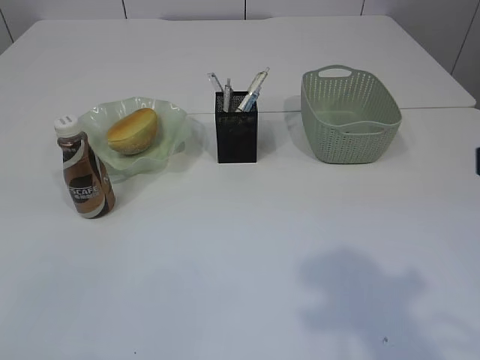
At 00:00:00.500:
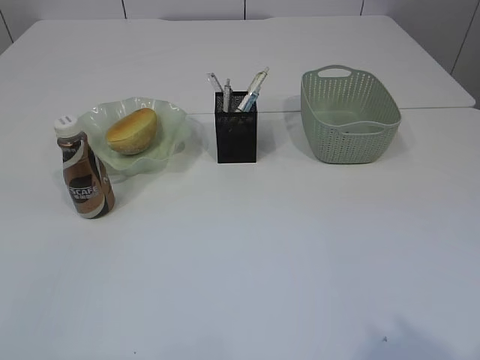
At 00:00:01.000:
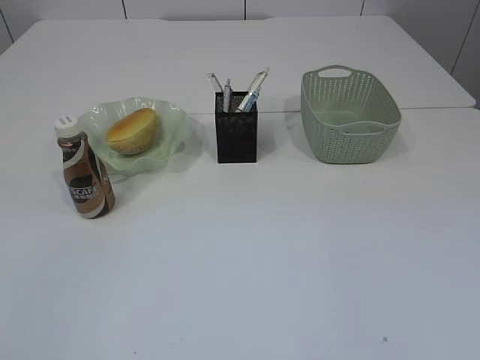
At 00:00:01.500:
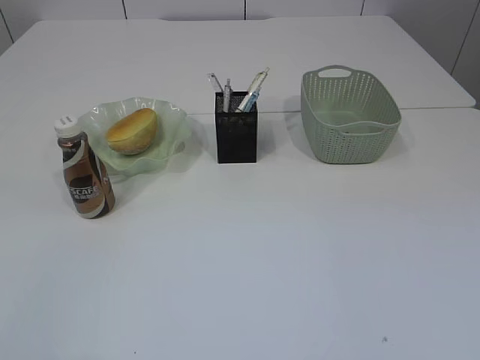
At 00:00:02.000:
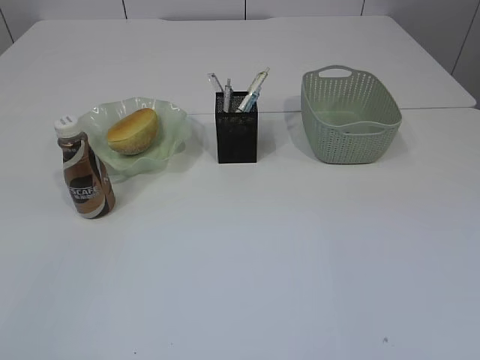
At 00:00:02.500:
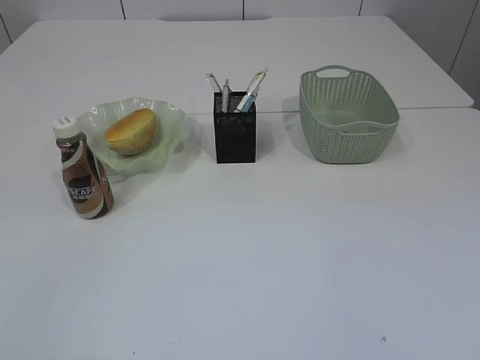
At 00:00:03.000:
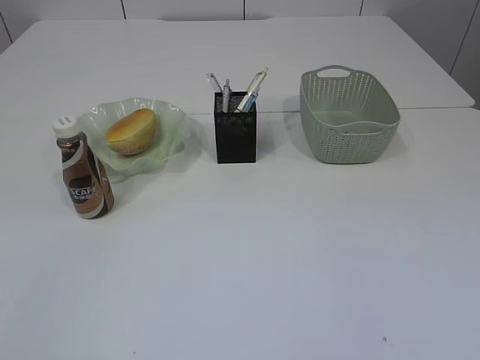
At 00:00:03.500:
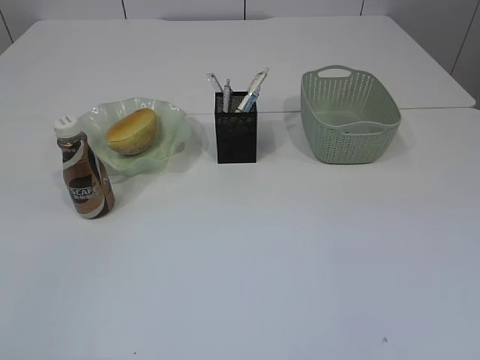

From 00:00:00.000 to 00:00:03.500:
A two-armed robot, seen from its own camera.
From 00:00:00.000 to 00:00:02.000: The right gripper heads backward, covering approximately 15 cm.

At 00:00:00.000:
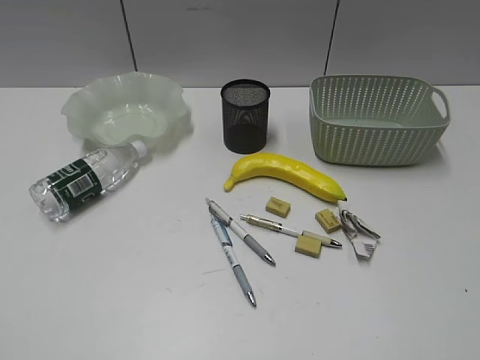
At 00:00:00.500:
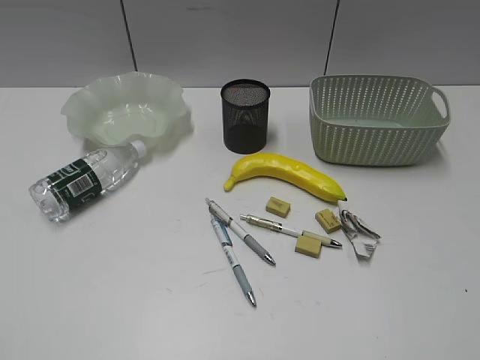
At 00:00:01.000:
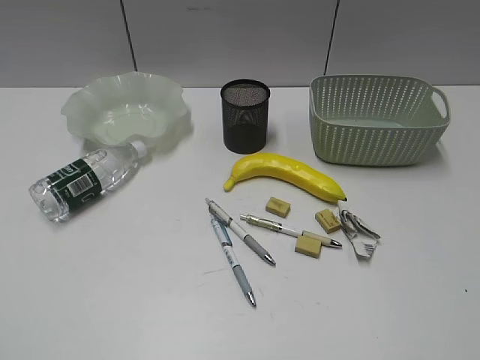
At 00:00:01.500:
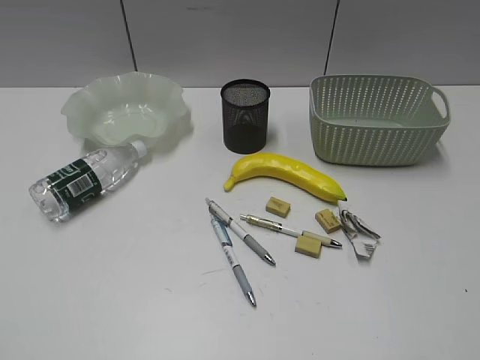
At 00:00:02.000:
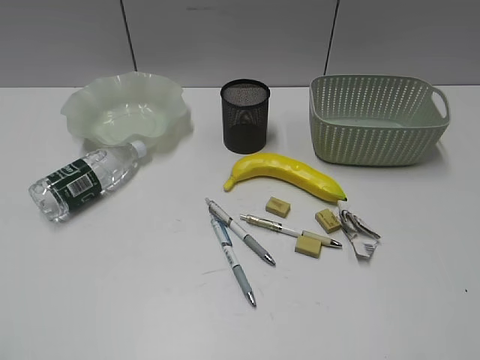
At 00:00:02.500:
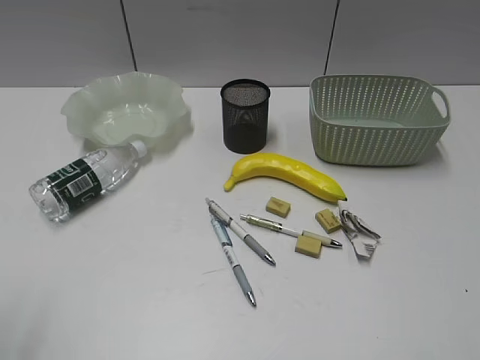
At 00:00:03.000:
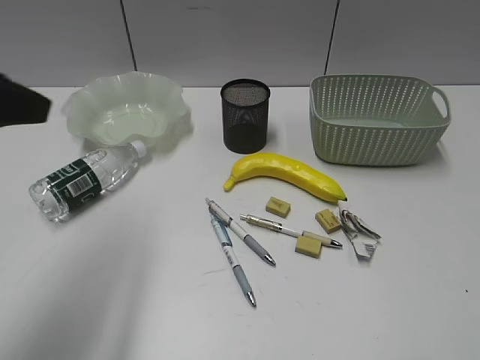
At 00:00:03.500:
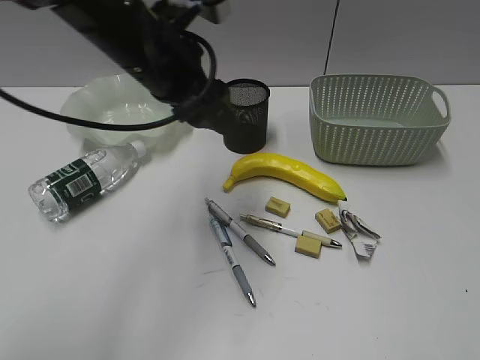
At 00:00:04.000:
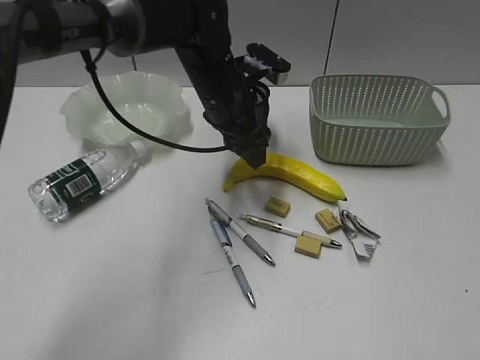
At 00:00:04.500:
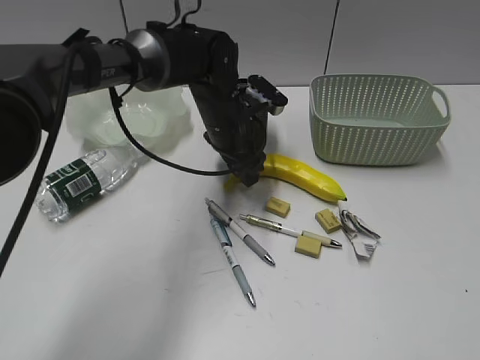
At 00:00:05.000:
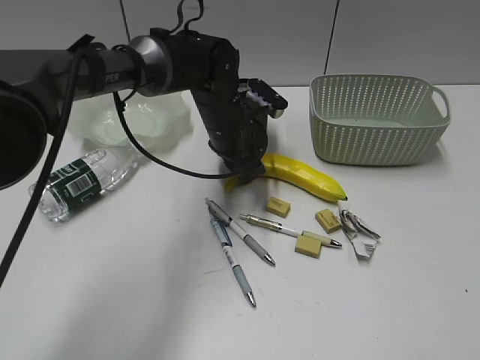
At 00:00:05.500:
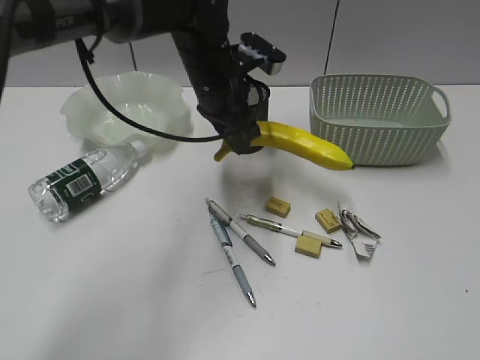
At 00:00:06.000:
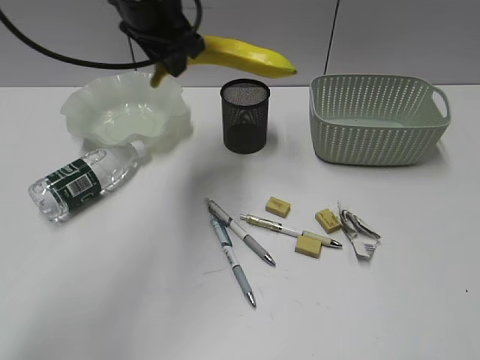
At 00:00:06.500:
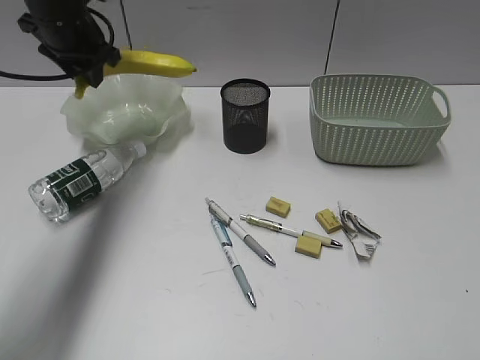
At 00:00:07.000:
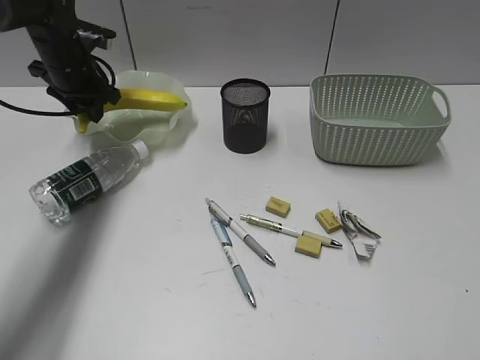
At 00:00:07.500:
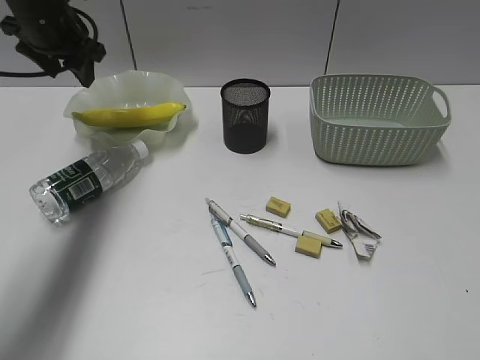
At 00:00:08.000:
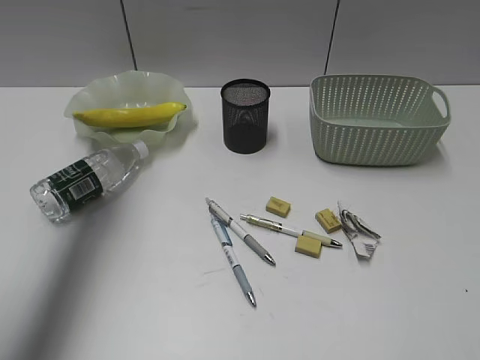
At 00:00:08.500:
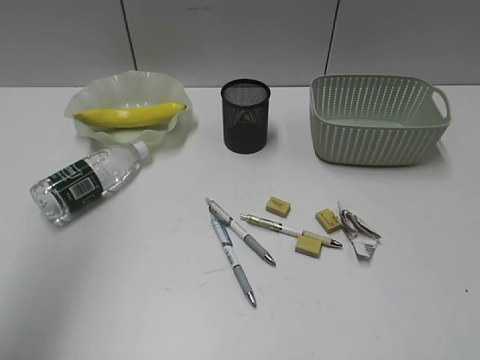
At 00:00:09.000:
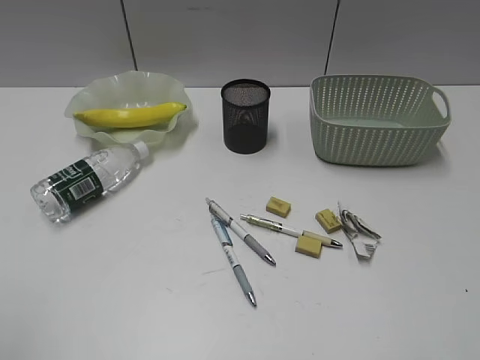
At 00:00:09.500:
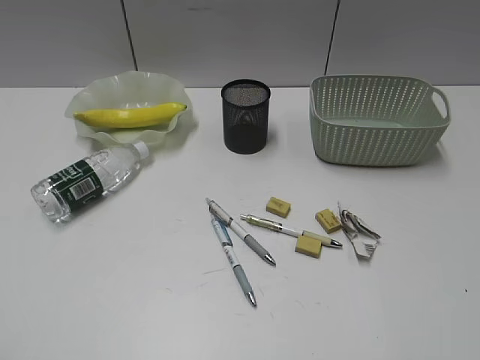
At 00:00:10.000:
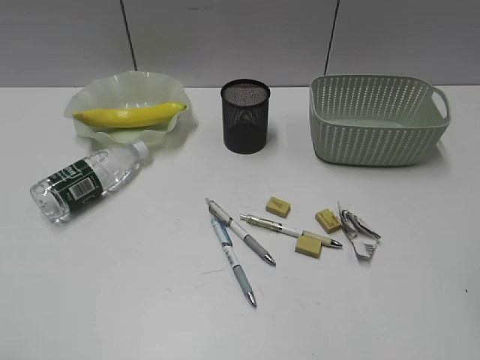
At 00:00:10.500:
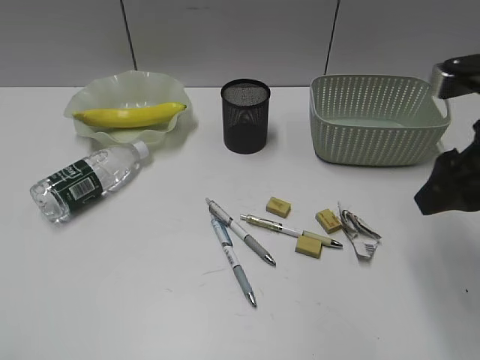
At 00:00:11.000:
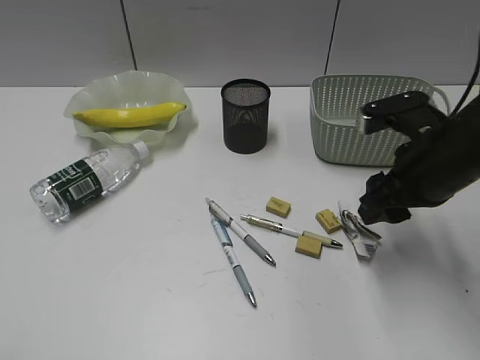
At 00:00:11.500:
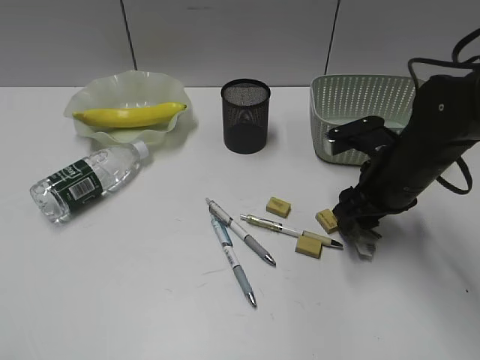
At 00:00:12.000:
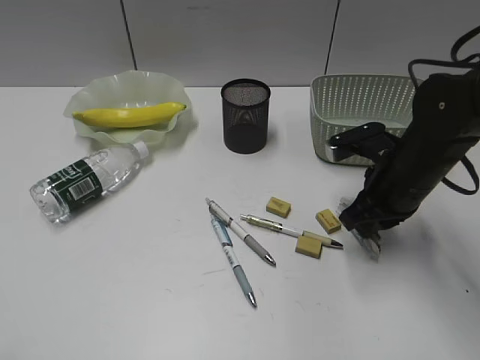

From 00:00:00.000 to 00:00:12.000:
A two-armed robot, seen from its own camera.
Step, from 00:00:02.000 to 00:00:05.000: Grasp the banana with left gripper.
Step, from 00:00:05.500 to 00:00:07.000: Place the banana in the plate with left gripper.
Step, from 00:00:07.500 to 00:00:11.500: Grasp the waste paper with right gripper.
From 00:00:02.000 to 00:00:04.000: The left gripper is displaced forward and to the right by approximately 50 cm, and opens.
From 00:00:04.000 to 00:00:06.000: The left gripper shifts some 15 cm upward and to the left, and closes.
From 00:00:06.000 to 00:00:08.000: The left gripper moves to the left and upward, about 20 cm, and opens up.
From 00:00:08.000 to 00:00:10.000: The left gripper moves backward, about 40 cm.
From 00:00:10.000 to 00:00:12.000: The right gripper goes about 30 cm downward and forward, and closes.

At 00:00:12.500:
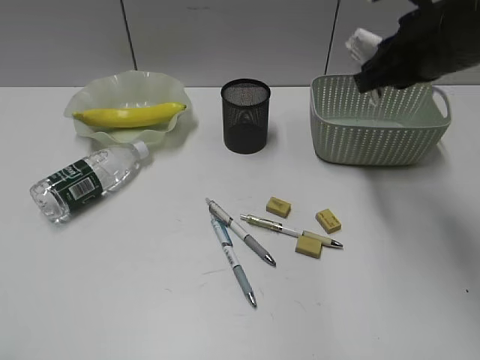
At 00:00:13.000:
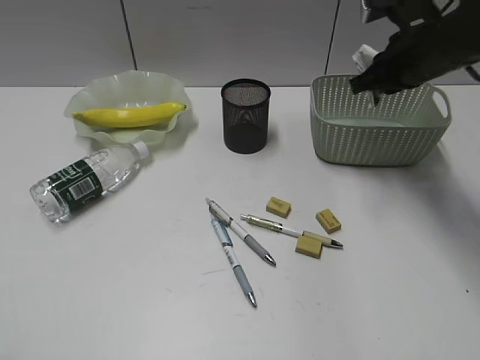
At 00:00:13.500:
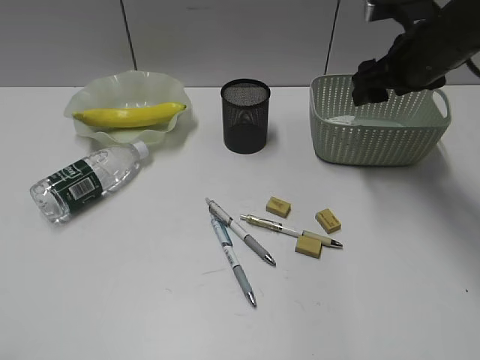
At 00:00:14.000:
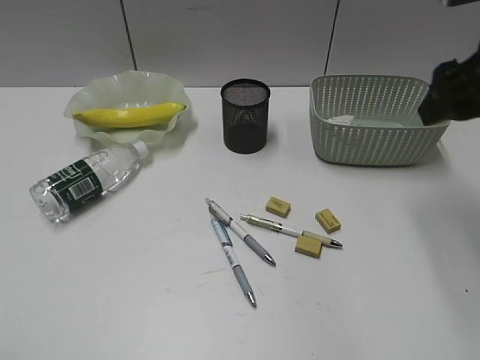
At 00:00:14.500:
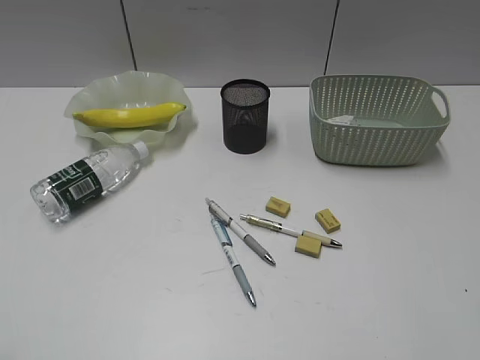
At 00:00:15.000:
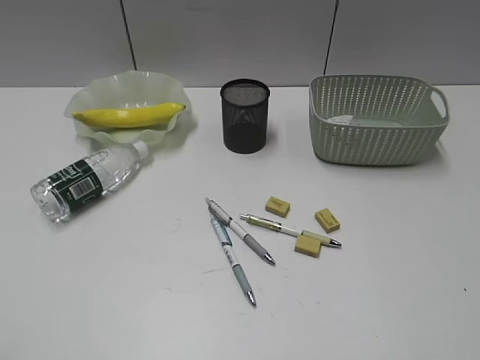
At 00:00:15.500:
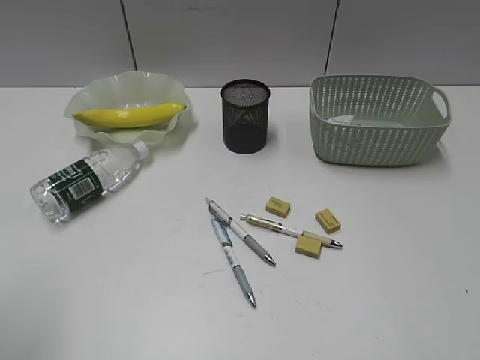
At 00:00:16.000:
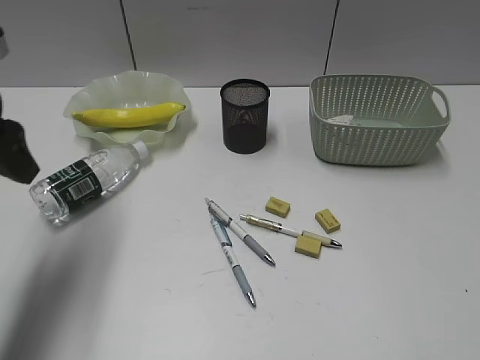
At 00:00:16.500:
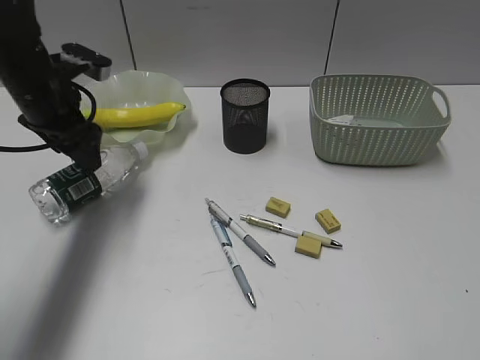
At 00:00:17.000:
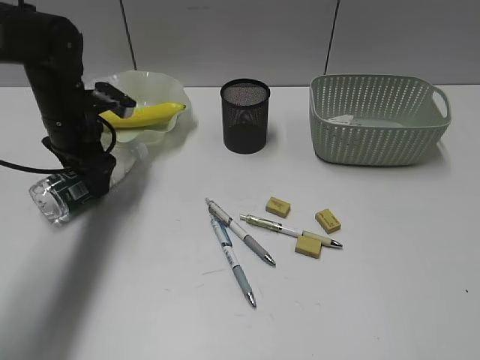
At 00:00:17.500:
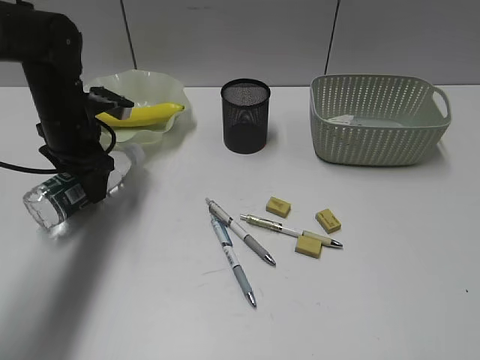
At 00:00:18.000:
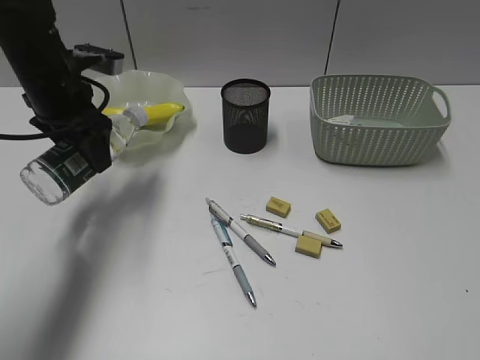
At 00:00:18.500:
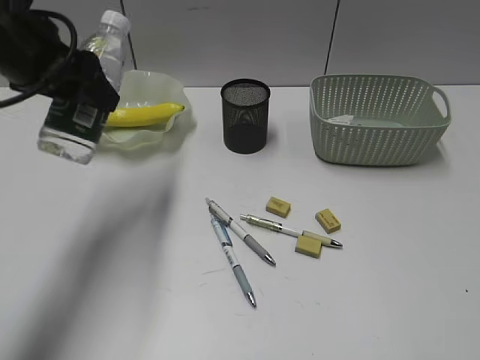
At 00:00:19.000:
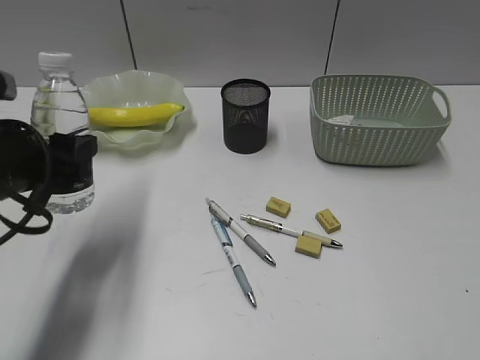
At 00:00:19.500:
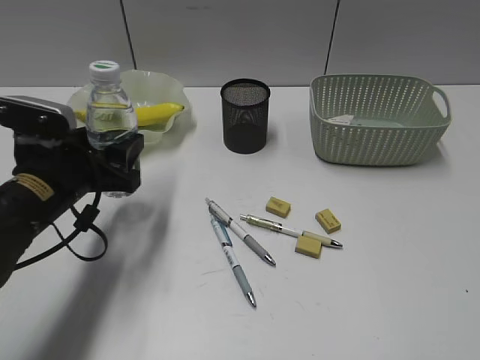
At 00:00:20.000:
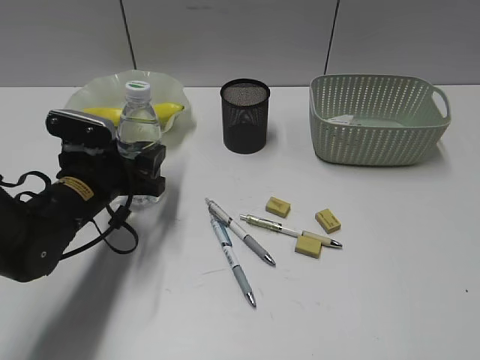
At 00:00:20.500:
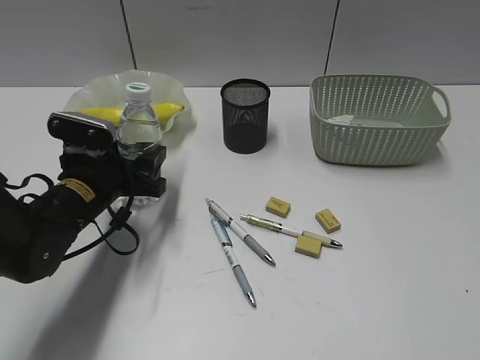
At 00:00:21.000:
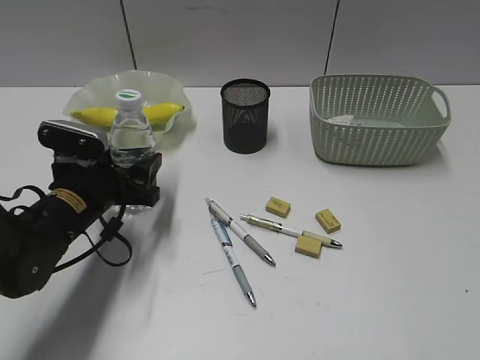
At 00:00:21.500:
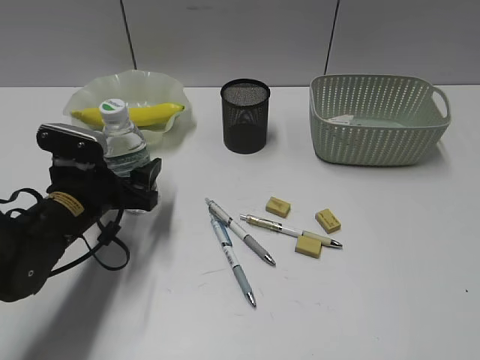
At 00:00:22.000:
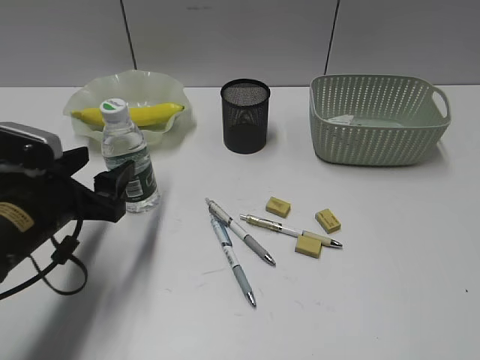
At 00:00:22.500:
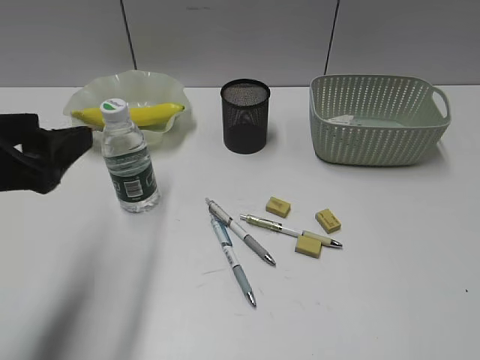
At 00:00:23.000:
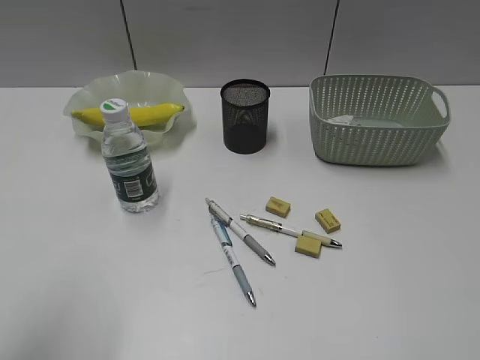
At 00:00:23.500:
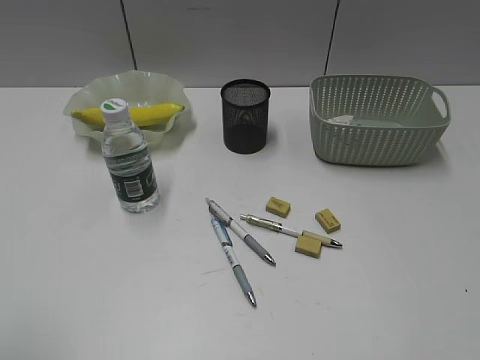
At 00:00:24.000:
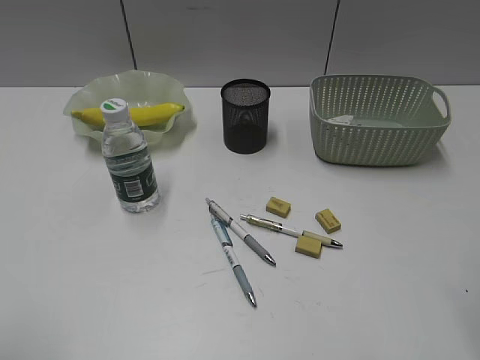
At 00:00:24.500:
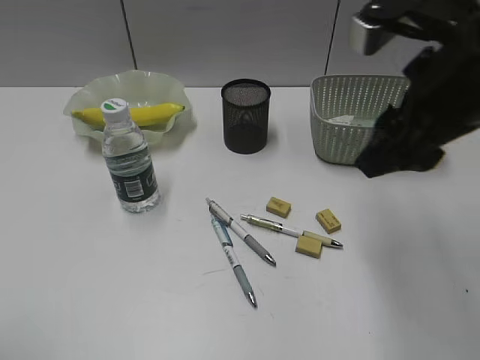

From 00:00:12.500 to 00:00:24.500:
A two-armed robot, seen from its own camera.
Step, from 00:00:12.500 to 00:00:13.500: Place the waste paper in the basket with right gripper.
Step, from 00:00:14.000 to 00:00:17.000: Grasp the bottle with left gripper.
Step, from 00:00:17.500 to 00:00:21.500: Stand the bottle with left gripper.
From 00:00:12.500 to 00:00:14.500: The right gripper goes about 25 cm backward and to the right, and opens its fingers.
From 00:00:14.500 to 00:00:16.500: The left gripper goes roughly 40 cm forward, and opens its fingers.
From 00:00:16.500 to 00:00:18.500: The left gripper moves upward and backward, roughly 10 cm.
From 00:00:18.500 to 00:00:20.500: The left gripper shifts about 20 cm downward.
From 00:00:20.500 to 00:00:22.500: The left gripper goes roughly 15 cm upward and backward.
From 00:00:22.500 to 00:00:24.500: The right gripper travels forward and to the left by approximately 30 cm, while the left gripper is displaced backward and to the left by some 20 cm.
